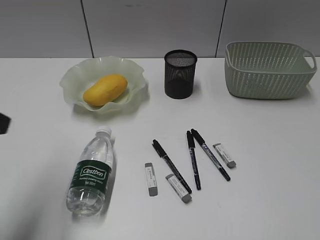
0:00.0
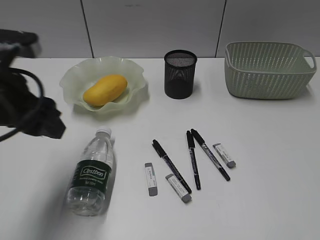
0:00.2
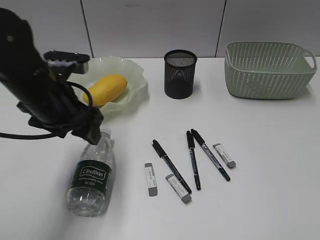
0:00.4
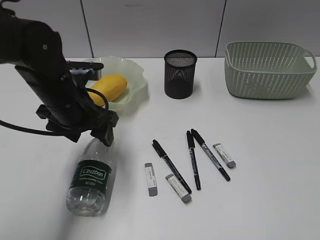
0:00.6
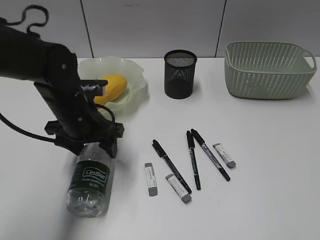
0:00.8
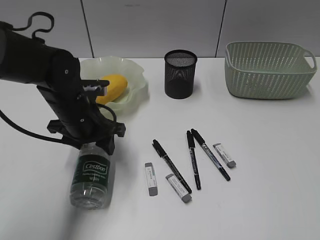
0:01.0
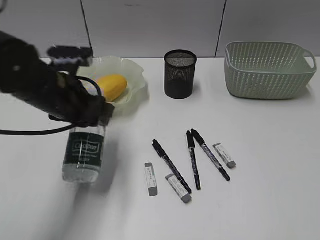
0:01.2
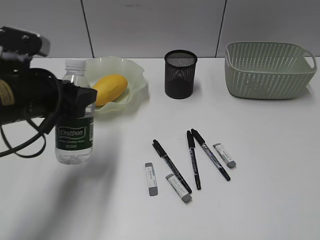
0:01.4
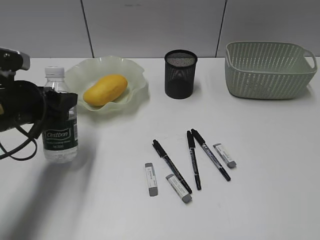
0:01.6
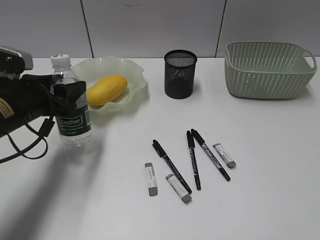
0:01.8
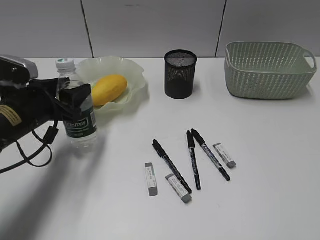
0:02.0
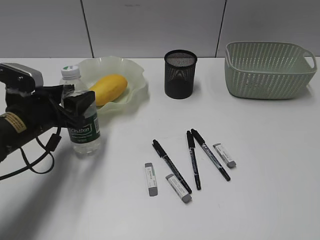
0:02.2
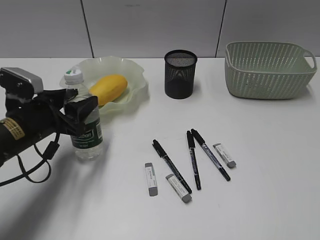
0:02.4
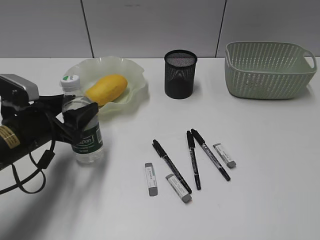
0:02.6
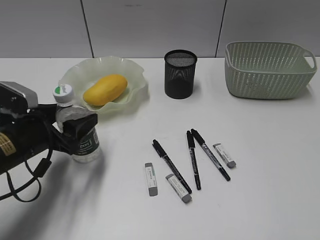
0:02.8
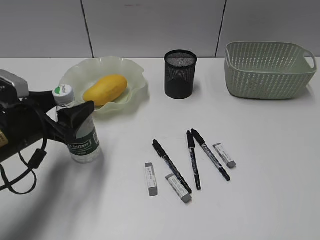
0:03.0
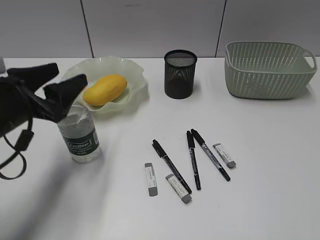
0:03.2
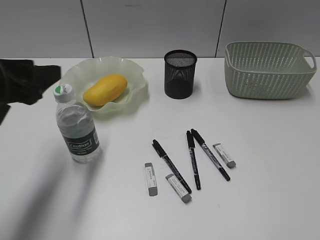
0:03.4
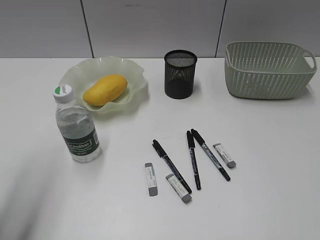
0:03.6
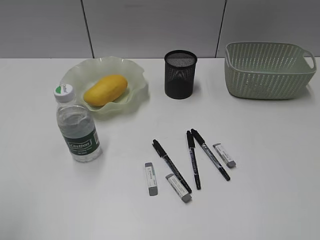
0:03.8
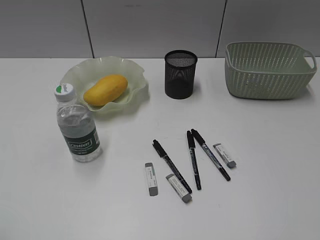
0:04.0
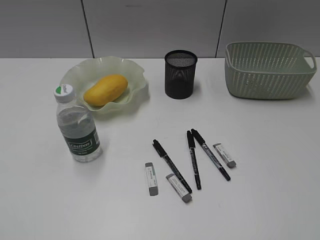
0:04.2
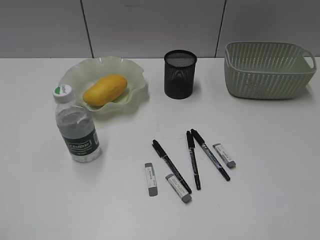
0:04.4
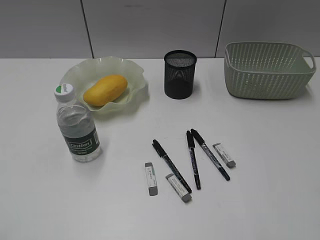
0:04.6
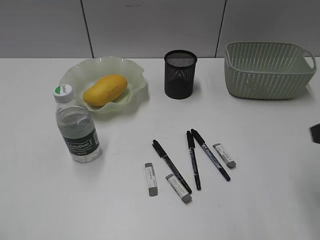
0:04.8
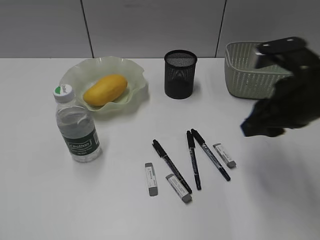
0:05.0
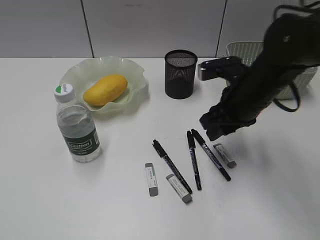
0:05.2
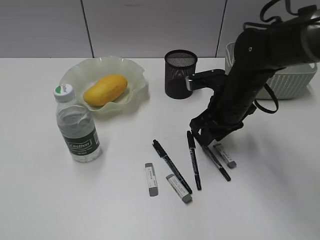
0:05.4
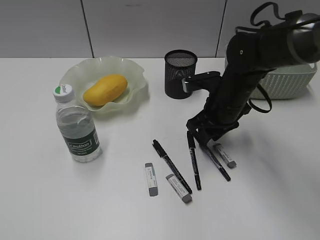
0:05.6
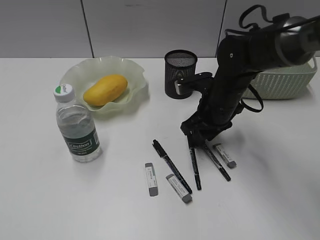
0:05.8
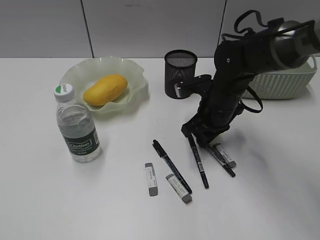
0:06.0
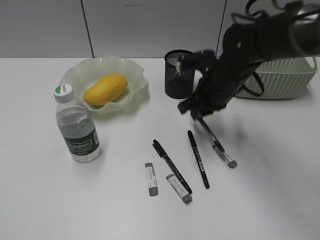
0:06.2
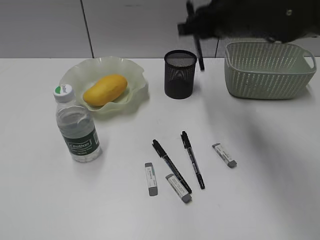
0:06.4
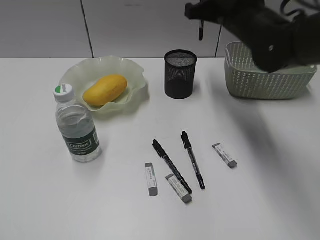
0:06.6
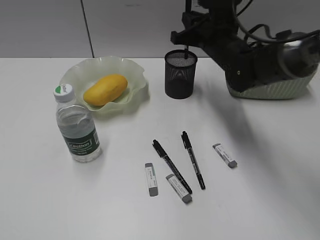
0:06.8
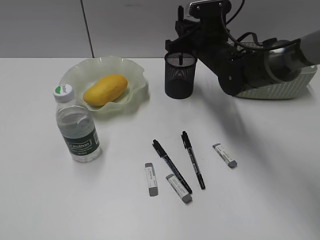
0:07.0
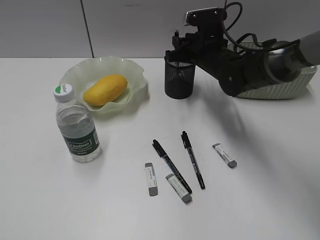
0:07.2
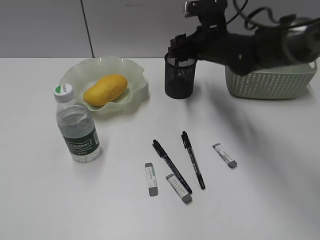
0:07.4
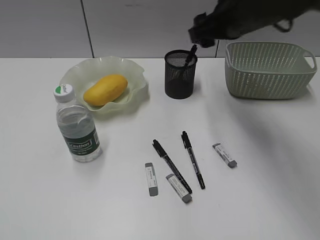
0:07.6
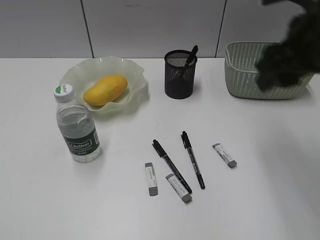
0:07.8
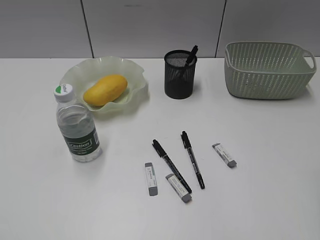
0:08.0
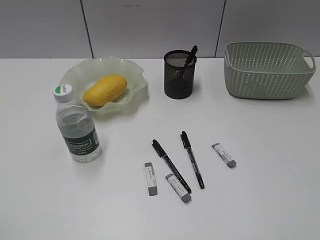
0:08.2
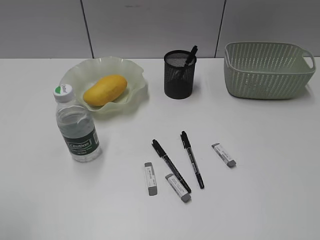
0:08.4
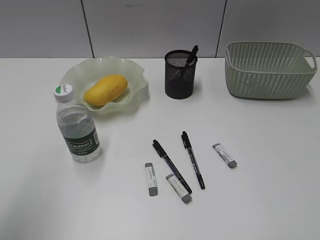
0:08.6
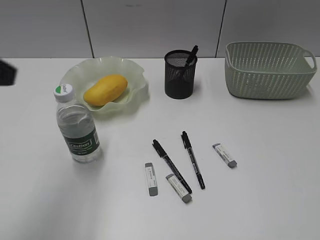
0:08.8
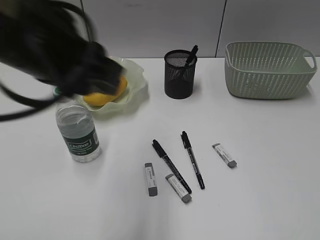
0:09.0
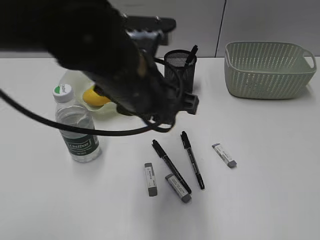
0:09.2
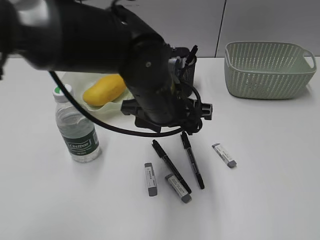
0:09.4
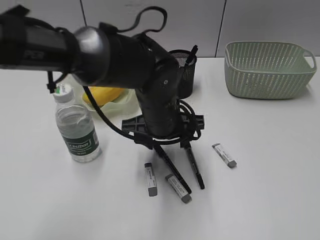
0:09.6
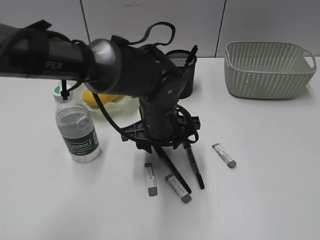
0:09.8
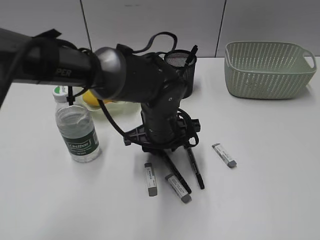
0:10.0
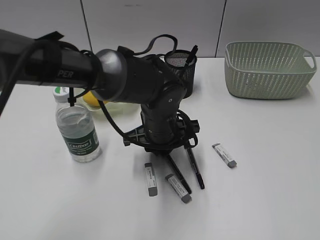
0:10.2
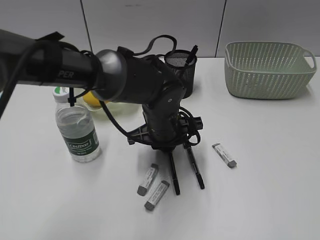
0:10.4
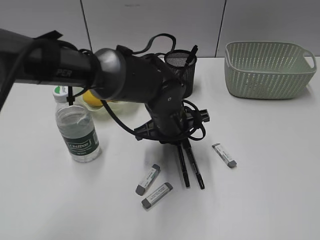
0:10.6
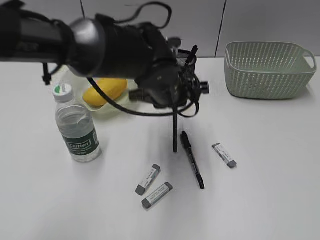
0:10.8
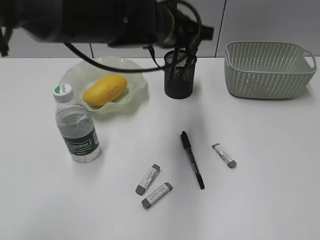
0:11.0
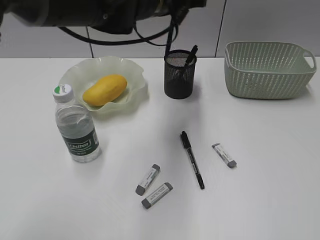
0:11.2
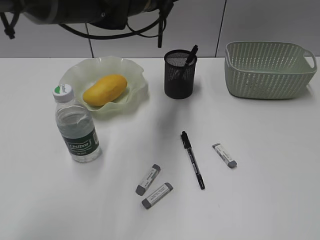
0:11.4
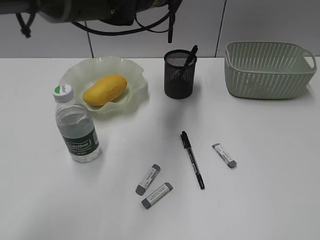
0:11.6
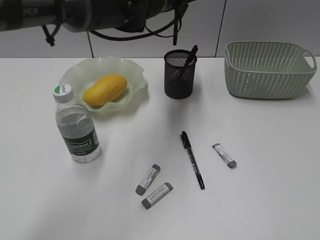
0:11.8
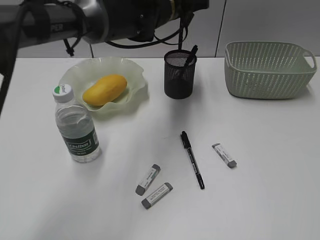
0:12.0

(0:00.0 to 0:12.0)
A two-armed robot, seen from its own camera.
Step, 0:01.2 - 0:03.2: Stand the bottle with left gripper.
Step, 0:03.4 - 0:06.0: Grasp the black pen with right gripper.
Step, 0:06.2 - 0:07.4: Place the black pen in pen holder with right gripper.
Step, 0:07.6 - 0:10.4: Grasp the black pen with left gripper.
0:00.0 - 0:01.6: The left gripper shifts about 15 cm downward and forward.
0:01.6 - 0:03.0: There are only small adjustments of the grippers.
0:03.0 - 0:04.4: The left gripper travels backward, upward and to the left by approximately 30 cm, and closes its fingers.
0:04.4 - 0:06.0: The right gripper moves forward, downward and to the left, roughly 40 cm.
0:06.0 - 0:07.6: The right gripper goes up and down, roughly 15 cm each way, reversing 2 times, and opens.
0:07.6 - 0:09.0: The right gripper is displaced backward and to the right by roughly 40 cm, while the left gripper heads to the right and forward, covering some 30 cm.
0:09.0 - 0:10.4: The left gripper travels downward, to the right and forward by some 25 cm, and opens and closes again.
0:10.4 - 0:12.0: The left gripper travels forward and upward by approximately 20 cm.

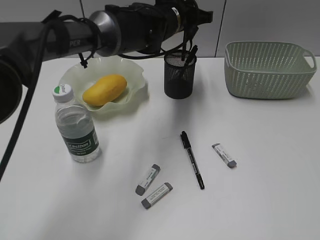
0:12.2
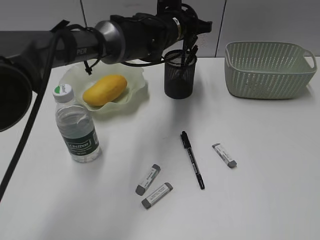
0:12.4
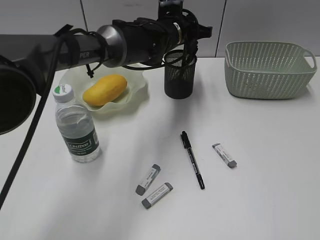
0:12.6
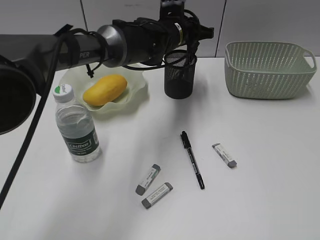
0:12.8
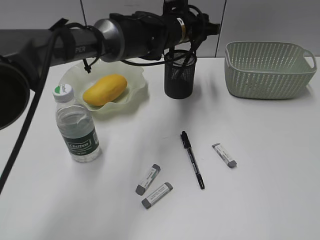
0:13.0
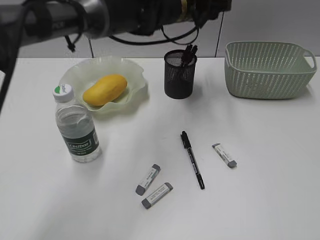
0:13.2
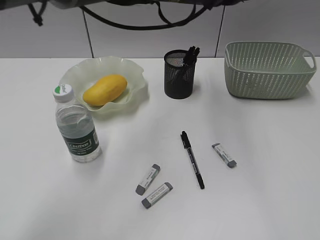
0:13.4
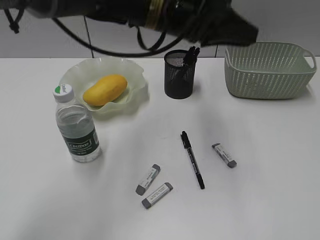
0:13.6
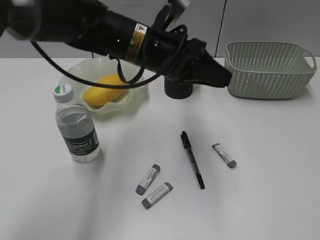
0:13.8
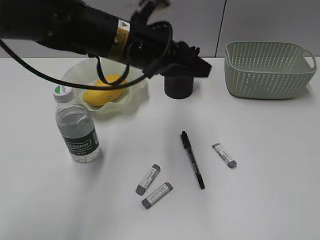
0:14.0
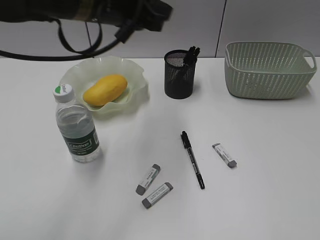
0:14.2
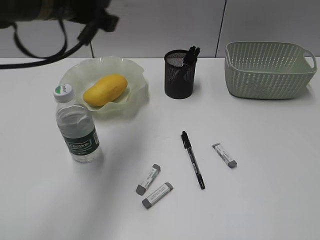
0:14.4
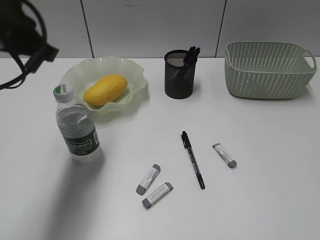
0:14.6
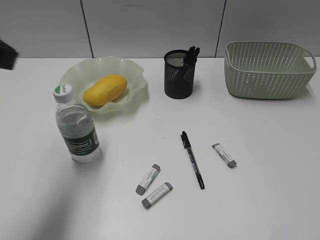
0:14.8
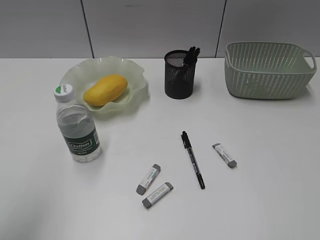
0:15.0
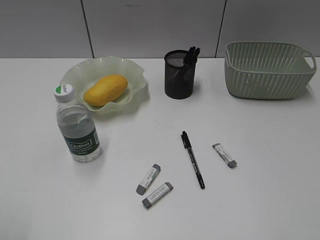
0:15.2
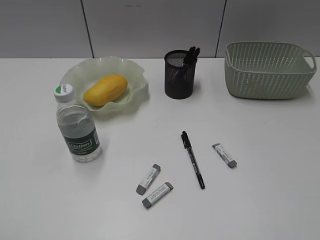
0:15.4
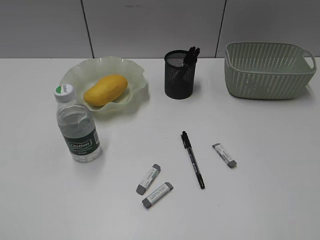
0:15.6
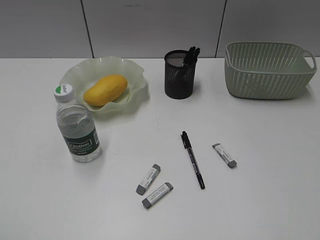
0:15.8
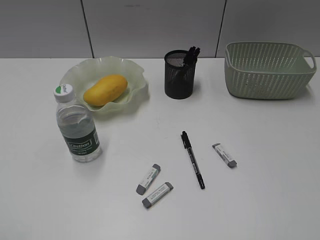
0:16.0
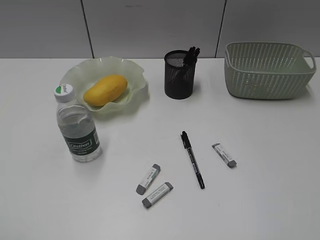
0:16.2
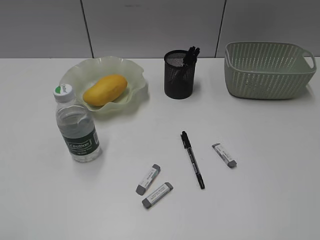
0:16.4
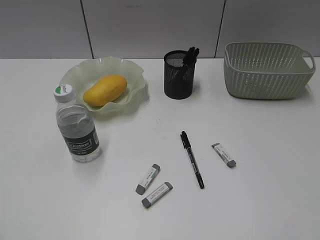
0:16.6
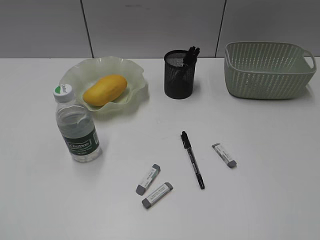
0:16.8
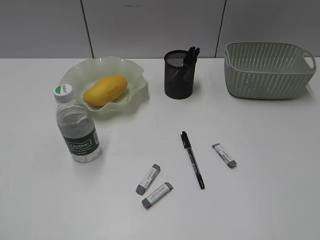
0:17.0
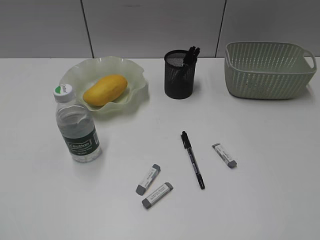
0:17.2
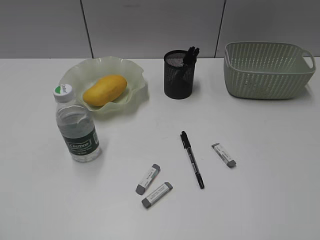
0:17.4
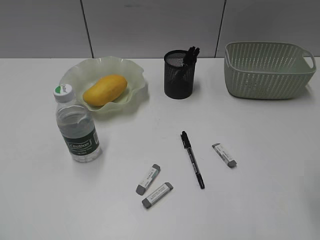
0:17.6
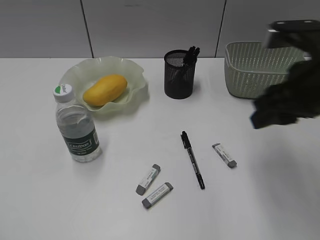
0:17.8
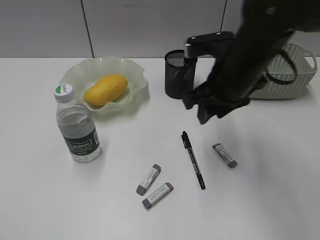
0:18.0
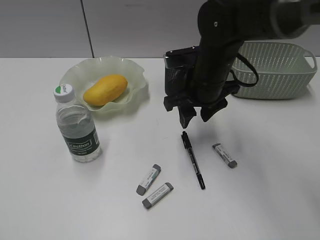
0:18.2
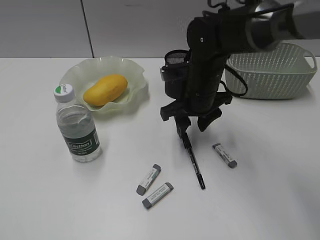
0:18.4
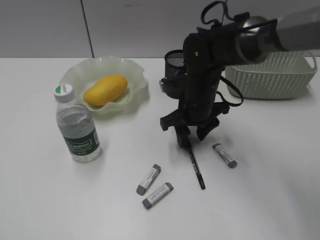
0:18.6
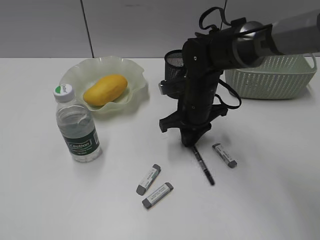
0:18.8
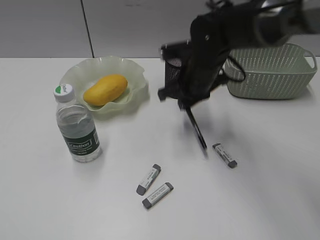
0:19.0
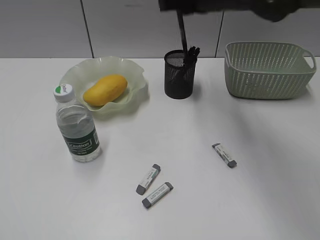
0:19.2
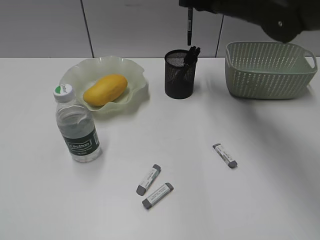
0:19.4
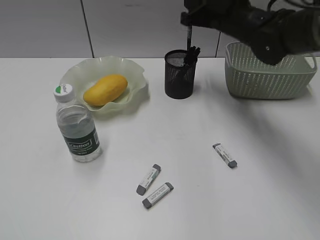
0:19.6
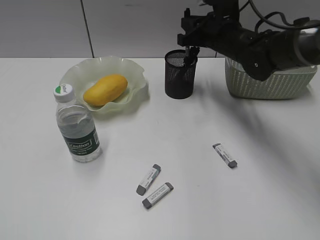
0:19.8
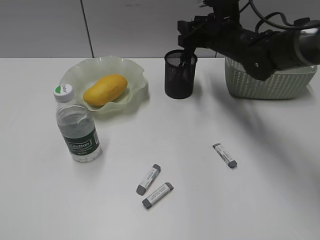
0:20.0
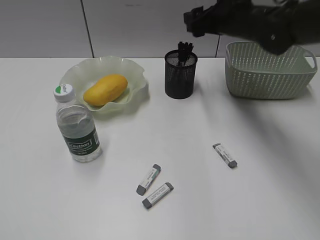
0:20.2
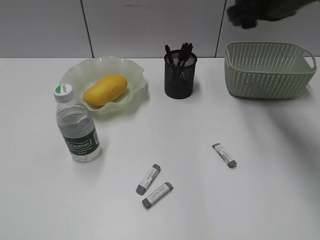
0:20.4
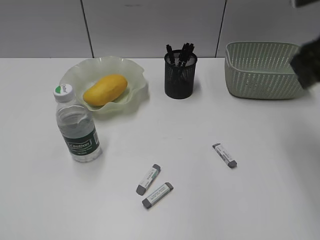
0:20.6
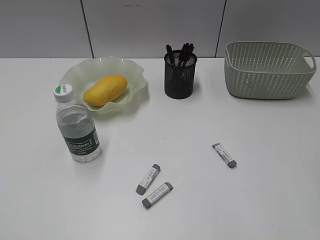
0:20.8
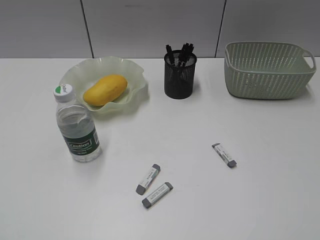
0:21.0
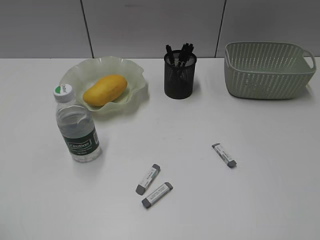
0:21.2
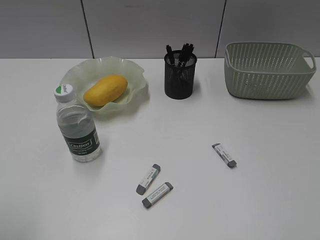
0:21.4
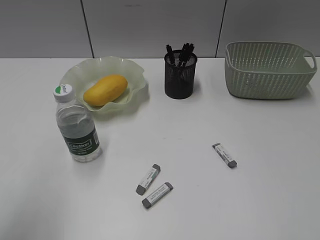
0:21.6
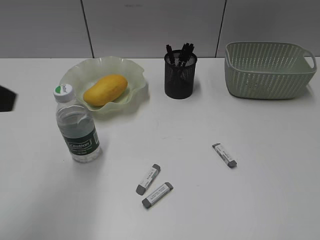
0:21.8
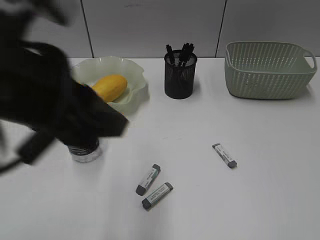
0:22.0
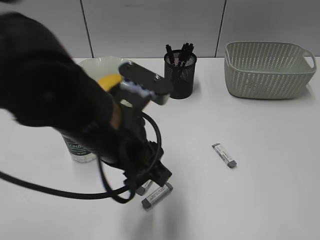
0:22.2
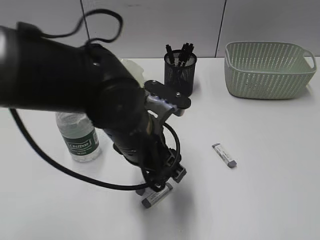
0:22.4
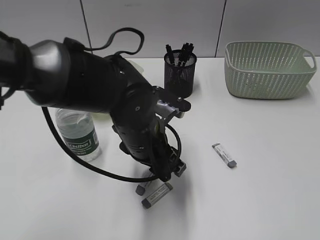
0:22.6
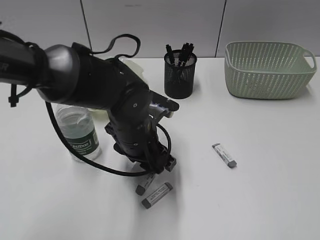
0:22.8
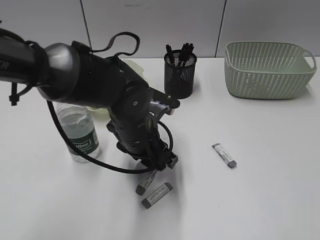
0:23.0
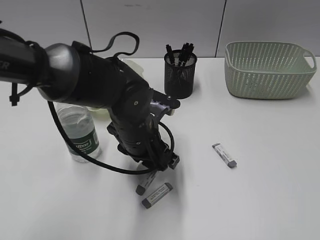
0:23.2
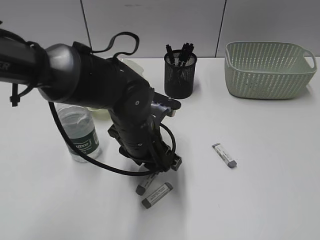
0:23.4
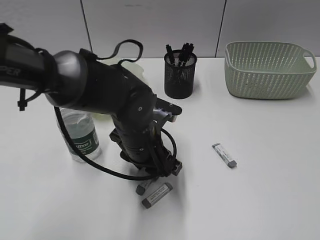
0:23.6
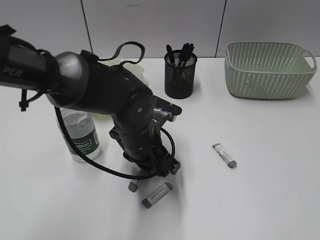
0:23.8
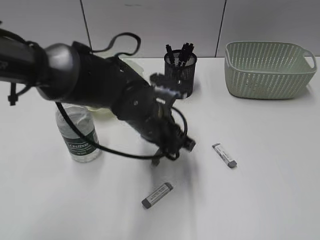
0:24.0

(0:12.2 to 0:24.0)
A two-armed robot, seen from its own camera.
Step, 0:13.2 - 0:18.8: Grasp the black pen with right gripper.
Step, 0:19.0 - 0:20.2: Place the black pen in pen holder with right gripper.
Step, 0:20.4 - 0:23.8: Grasp the eraser with left gripper.
0:12.2 - 0:13.6: The left gripper heads backward and upward, covering about 10 cm, and opens and closes again.
0:13.6 - 0:15.2: The left gripper goes approximately 50 cm to the left and backward.
0:16.6 - 0:18.2: The right gripper travels forward and to the left by roughly 40 cm.
0:18.2 - 0:19.6: The right gripper moves up and down over some 20 cm, changing direction 2 times, and closes up.
0:19.6 - 0:21.0: The right gripper moves backward and to the right, approximately 40 cm, and opens up.
0:21.0 - 0:22.6: The left gripper moves to the right, forward and downward, approximately 40 cm; the right gripper shifts some 5 cm backward.
0:22.6 - 0:24.0: The left gripper closes up.
